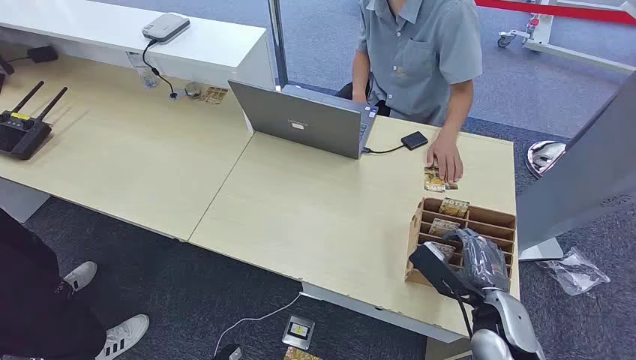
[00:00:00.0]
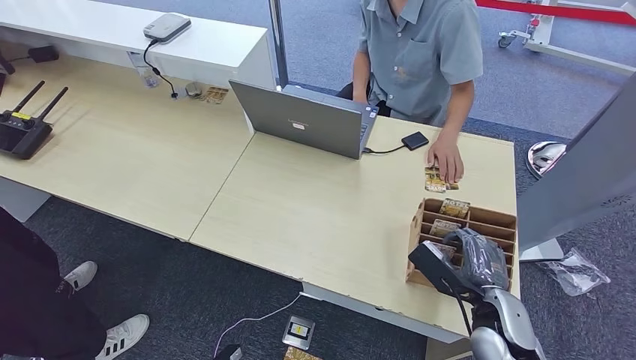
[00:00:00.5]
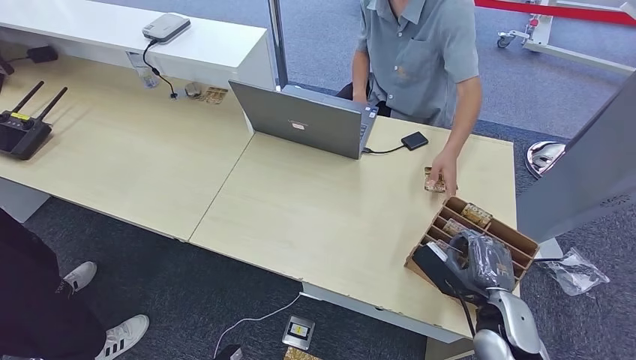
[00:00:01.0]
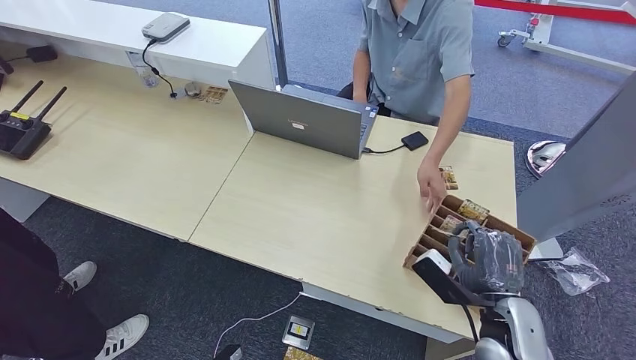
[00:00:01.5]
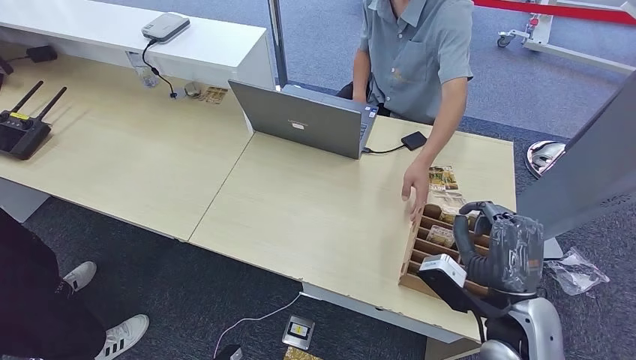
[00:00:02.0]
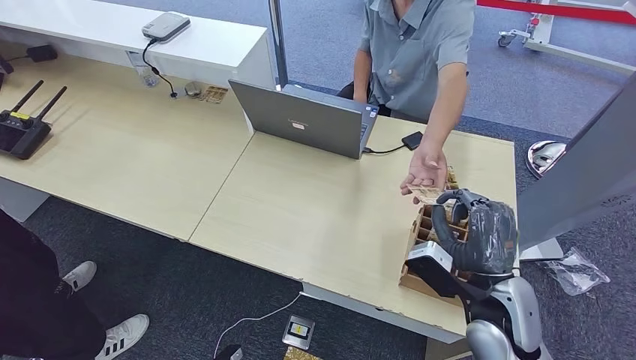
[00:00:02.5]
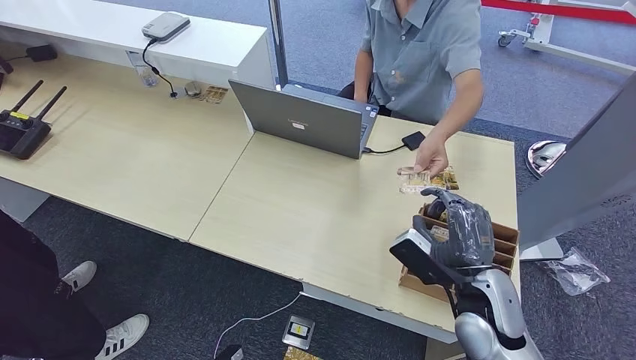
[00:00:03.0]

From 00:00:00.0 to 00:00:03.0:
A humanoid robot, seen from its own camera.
Step, from 00:00:00.0 to 00:00:01.5: Pick up the key card from the card box.
Step, from 00:00:02.0 to 00:00:03.0: Hand the key card to the target.
From 00:00:01.5 to 00:00:03.0: The right hand heads to the left, covering about 5 cm.

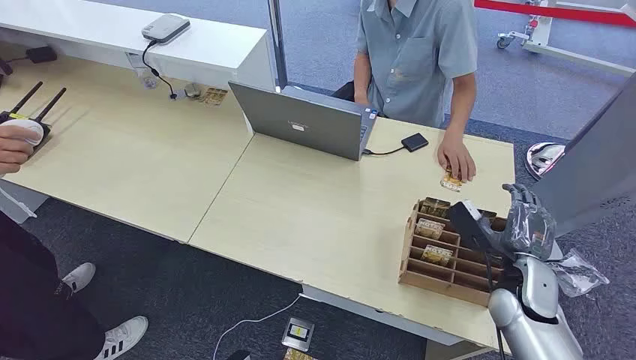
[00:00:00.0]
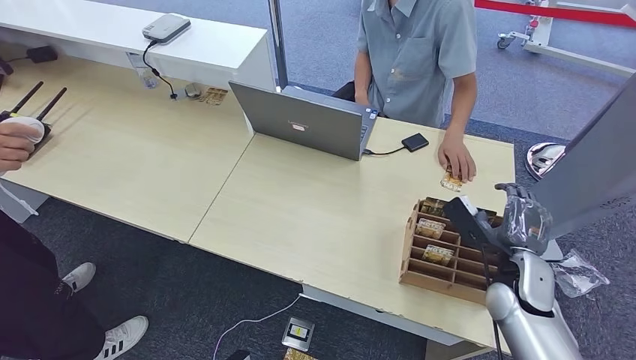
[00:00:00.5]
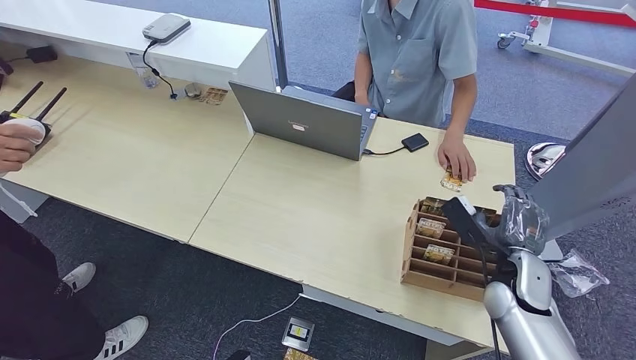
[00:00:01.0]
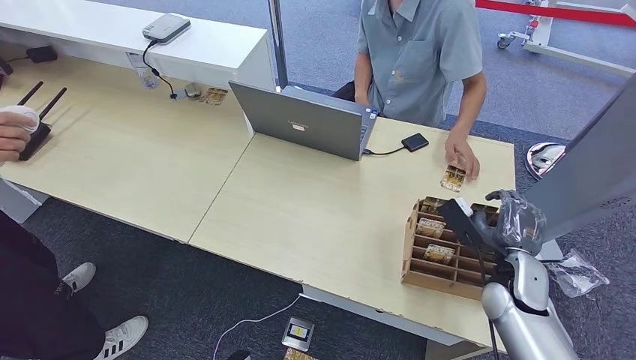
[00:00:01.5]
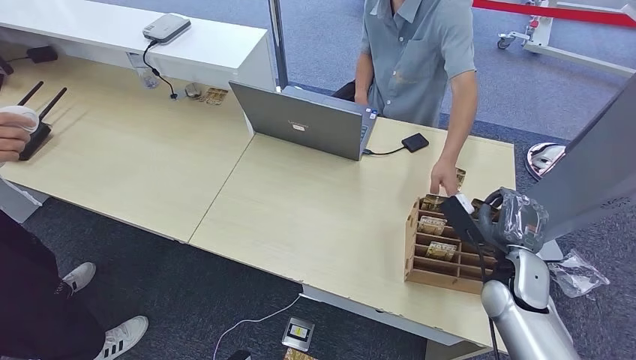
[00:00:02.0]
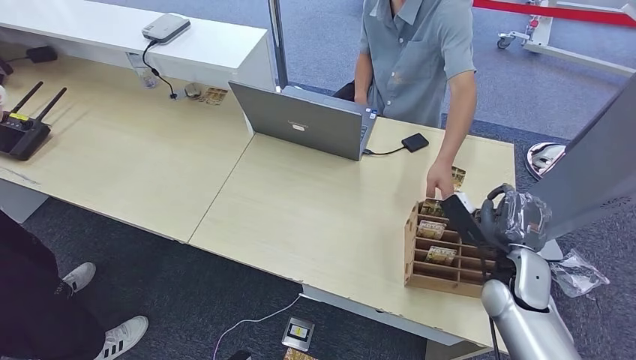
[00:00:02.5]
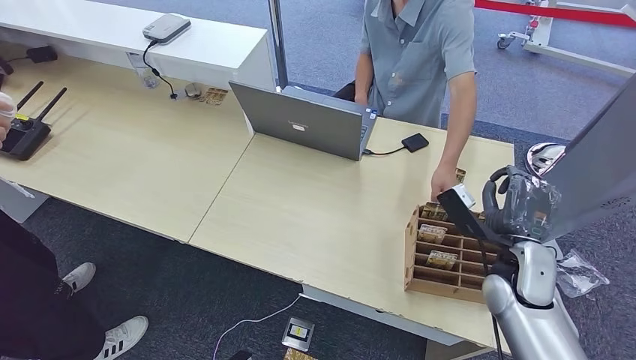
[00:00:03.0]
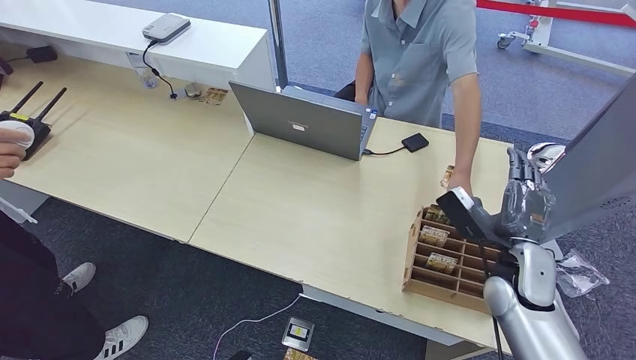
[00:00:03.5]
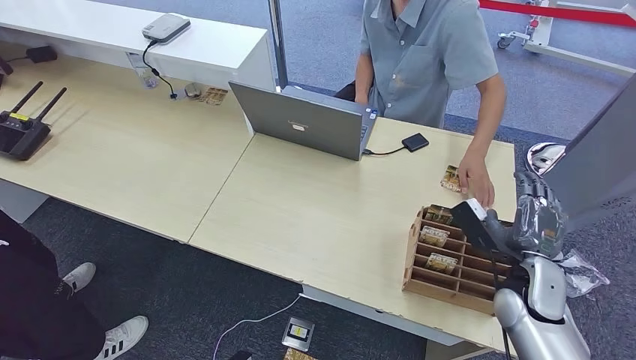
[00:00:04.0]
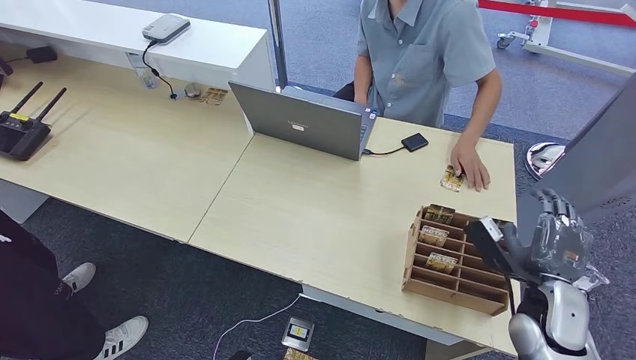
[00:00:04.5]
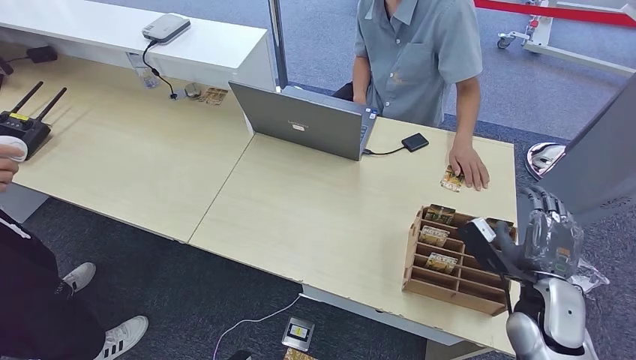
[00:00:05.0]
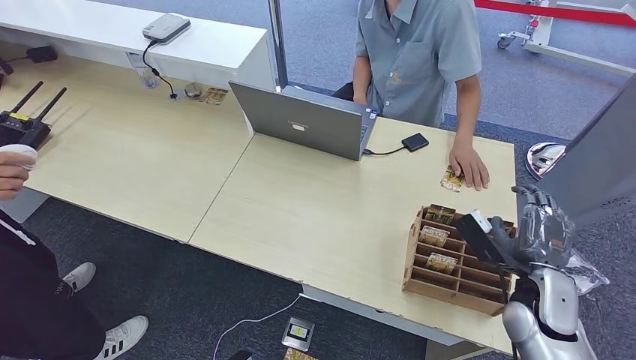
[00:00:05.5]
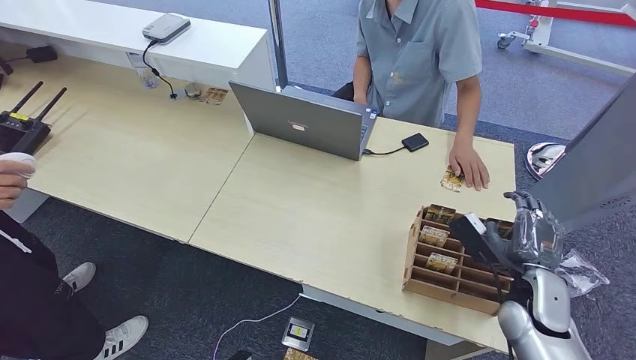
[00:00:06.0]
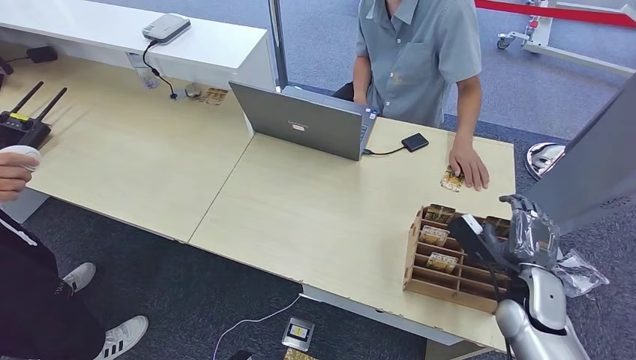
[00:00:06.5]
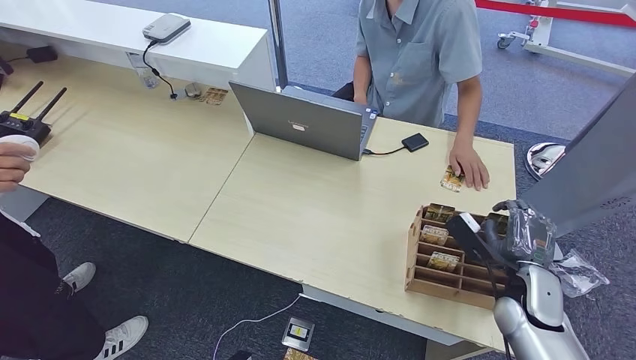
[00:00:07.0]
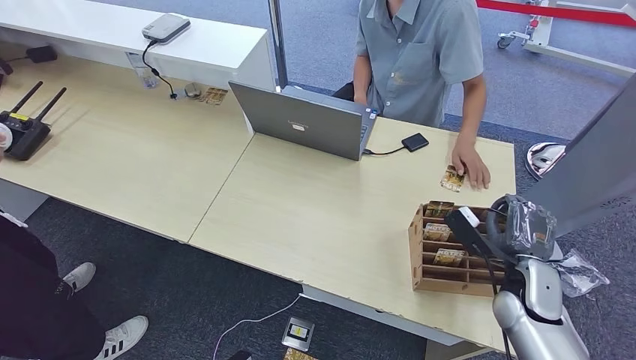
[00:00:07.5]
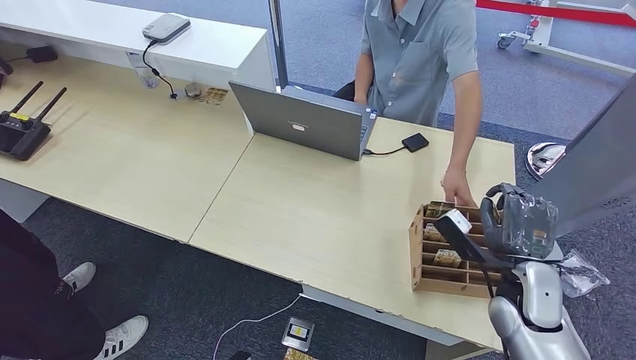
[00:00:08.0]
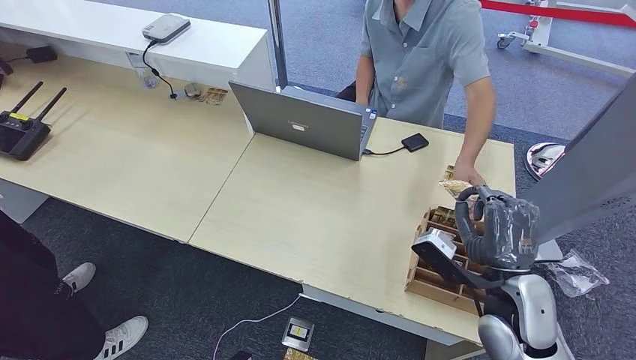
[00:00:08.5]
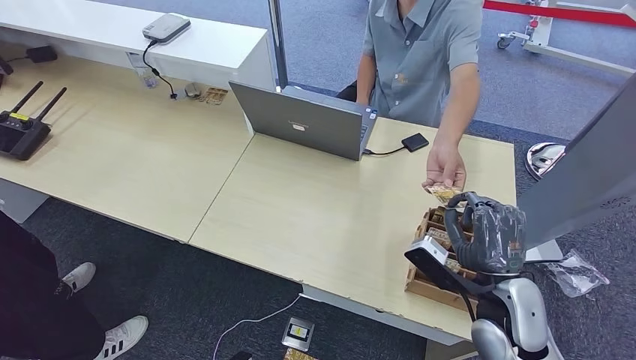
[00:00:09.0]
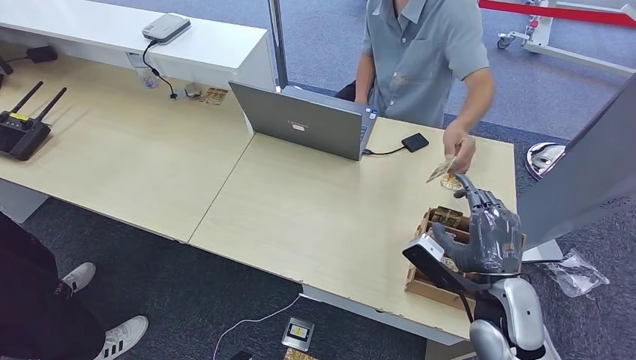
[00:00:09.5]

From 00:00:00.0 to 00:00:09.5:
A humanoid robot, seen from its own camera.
Step, from 00:00:00.0 to 00:00:07.5: Pick up the key card from the card box.
Step, from 00:00:08.0 to 00:00:09.5: Hand the key card to the target.
From 00:00:02.0 to 00:00:07.5: The hands stay close to where they were, moving slightly.
From 00:00:07.5 to 00:00:09.5: The right hand is displaced to the left by about 5 cm.
